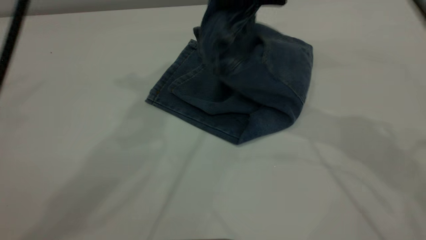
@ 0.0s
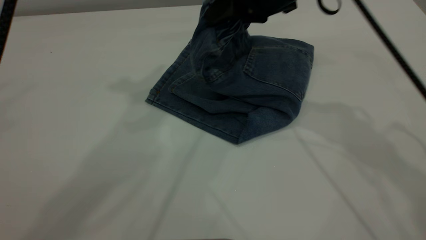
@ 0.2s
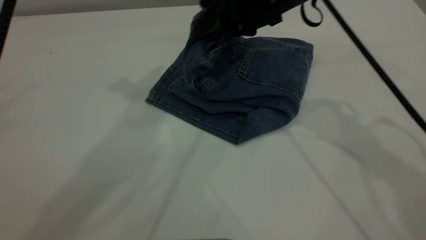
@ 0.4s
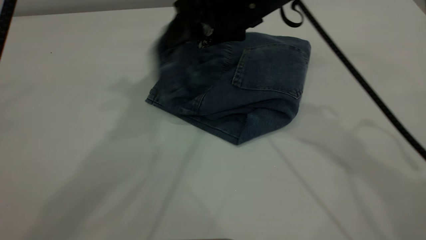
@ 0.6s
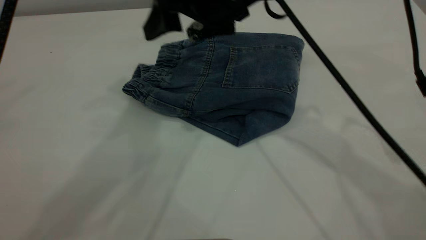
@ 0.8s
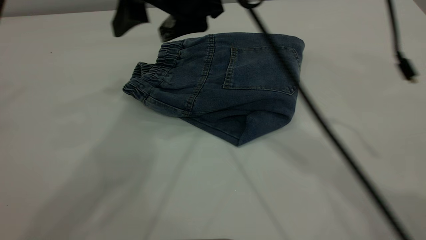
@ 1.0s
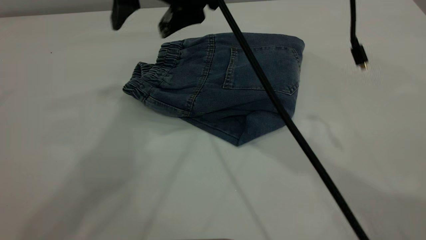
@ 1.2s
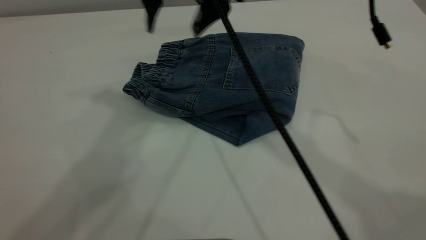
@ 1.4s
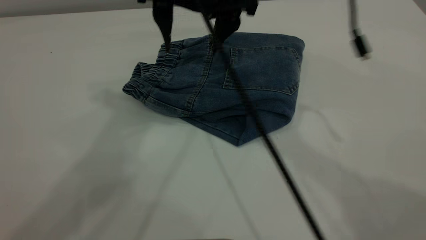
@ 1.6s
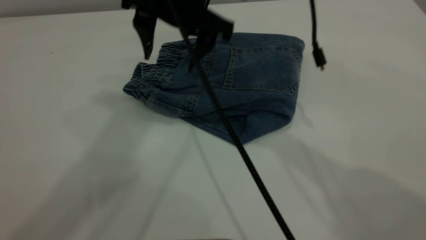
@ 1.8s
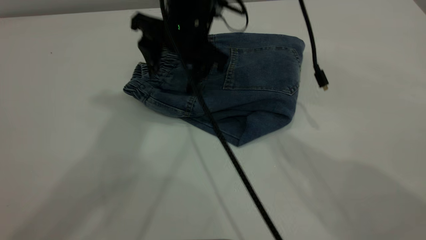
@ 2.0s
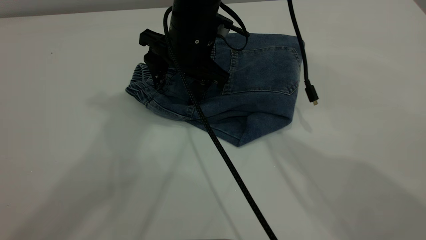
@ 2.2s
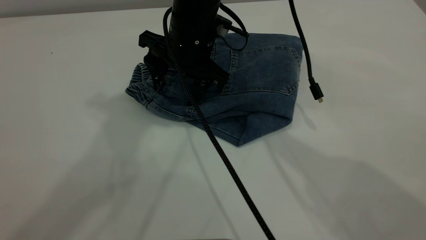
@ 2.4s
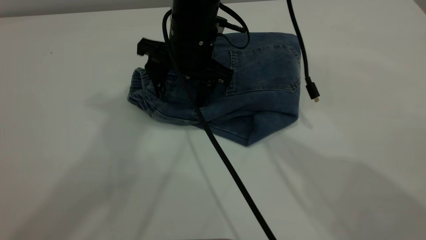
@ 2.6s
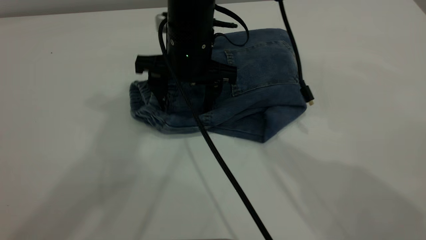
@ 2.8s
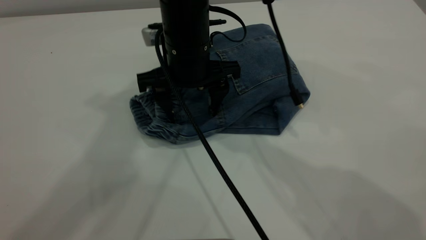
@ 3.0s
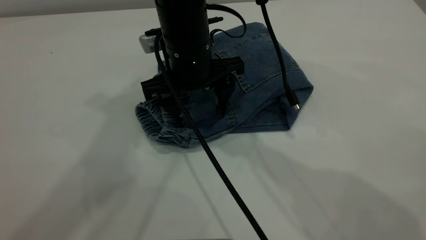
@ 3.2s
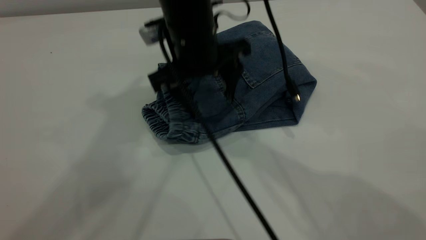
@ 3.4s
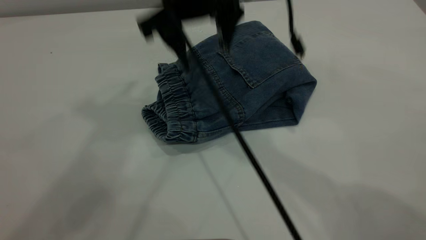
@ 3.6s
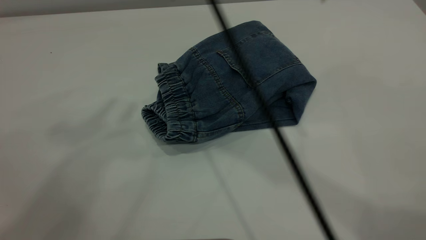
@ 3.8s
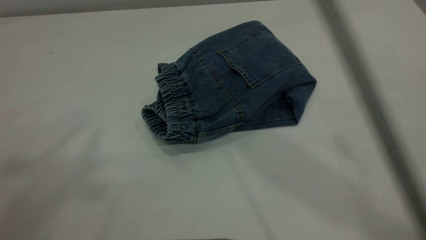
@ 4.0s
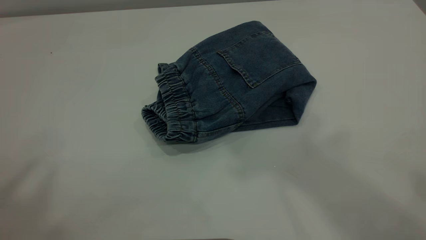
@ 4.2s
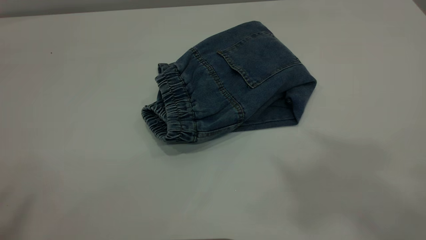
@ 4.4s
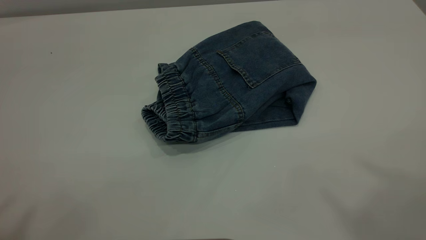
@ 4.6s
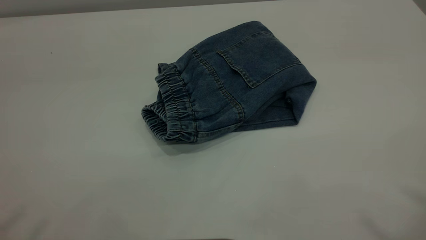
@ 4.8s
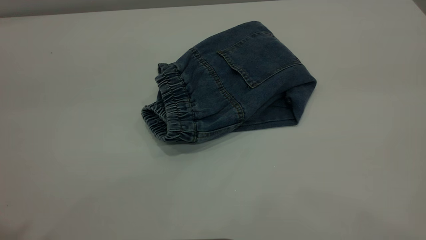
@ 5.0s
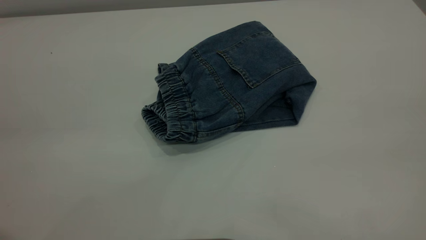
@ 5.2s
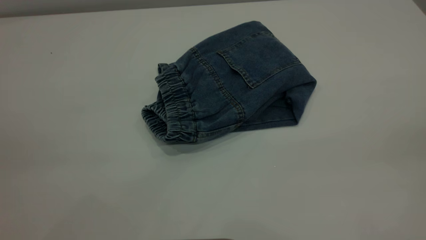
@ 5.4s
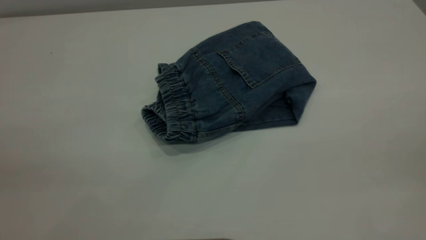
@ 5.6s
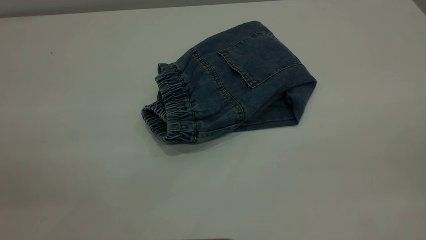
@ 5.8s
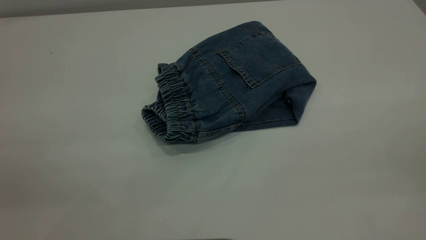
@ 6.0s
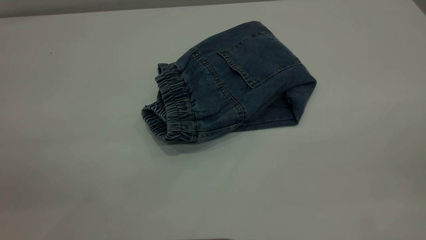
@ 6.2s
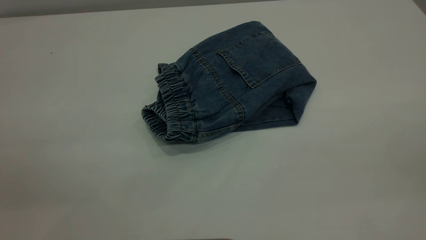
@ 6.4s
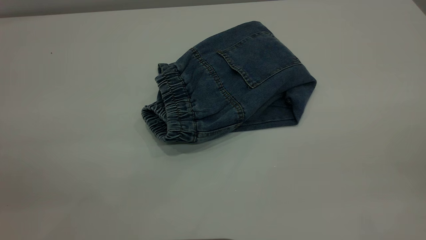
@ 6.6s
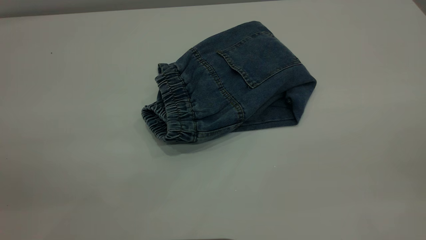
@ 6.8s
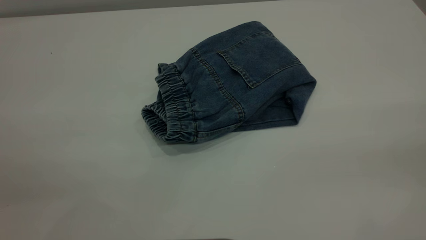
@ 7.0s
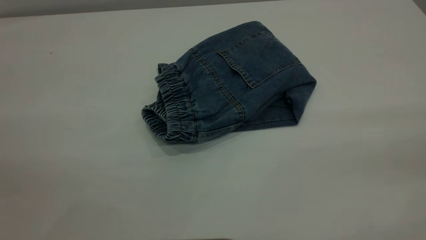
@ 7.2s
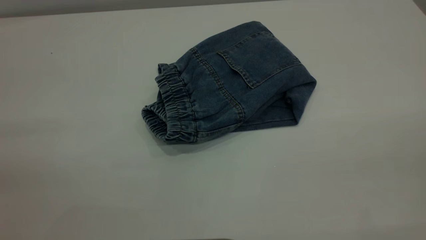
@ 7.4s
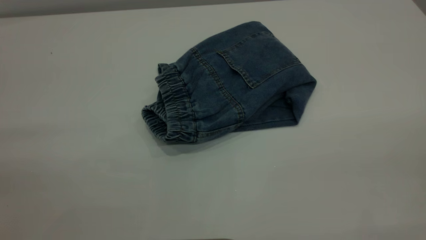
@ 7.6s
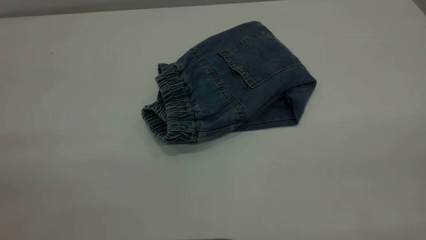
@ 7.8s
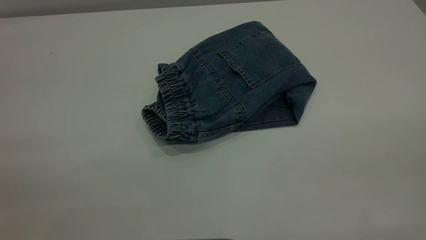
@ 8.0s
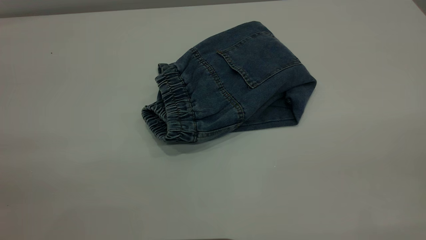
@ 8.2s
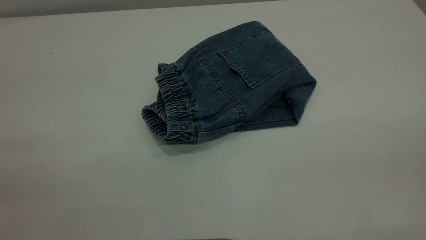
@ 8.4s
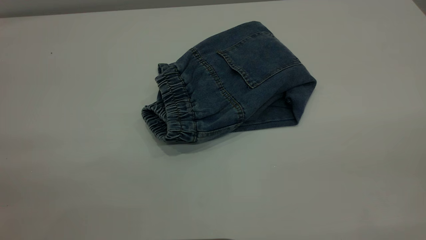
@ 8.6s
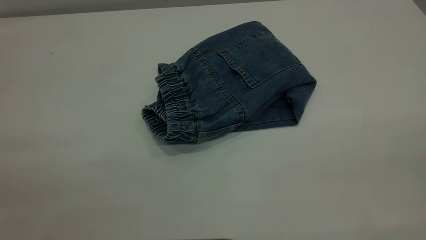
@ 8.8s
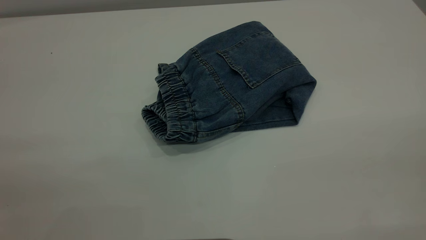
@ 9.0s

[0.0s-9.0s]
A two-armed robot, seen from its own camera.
0.0s to 1.6s: The left gripper ends up some 5 cm from where it was. Meanwhile the right gripper heads to the left, covering about 10 cm, and opens up.
1.6s to 3.0s: The right gripper shifts about 10 cm downward.
3.0s to 4.4s: The right gripper shifts roughly 50 cm upward, to the right and backward; the left gripper goes approximately 25 cm backward, to the left and upward.

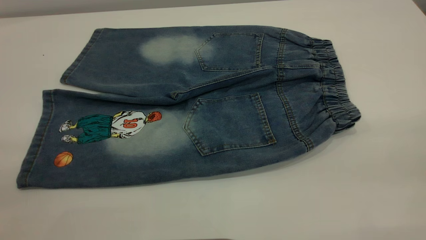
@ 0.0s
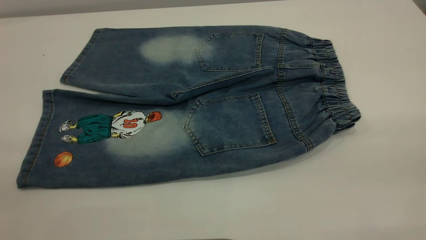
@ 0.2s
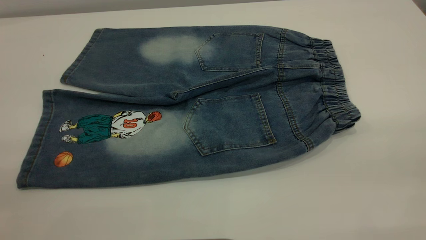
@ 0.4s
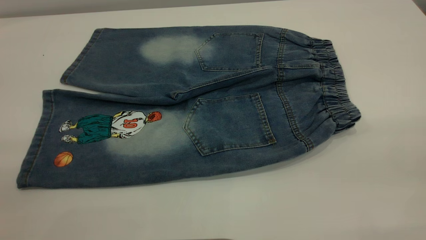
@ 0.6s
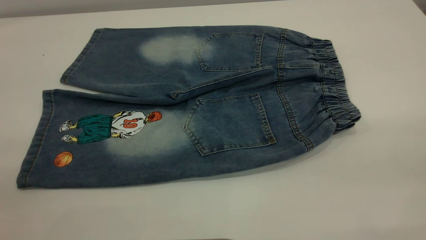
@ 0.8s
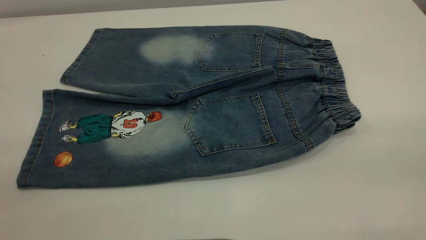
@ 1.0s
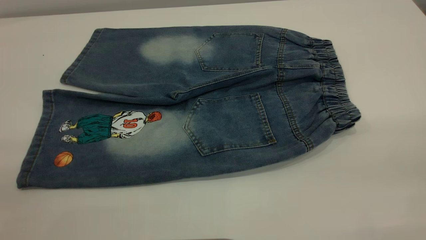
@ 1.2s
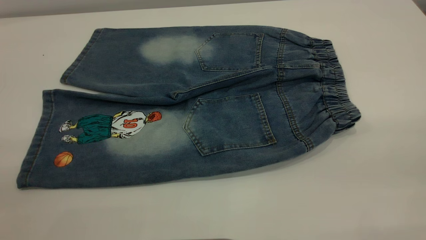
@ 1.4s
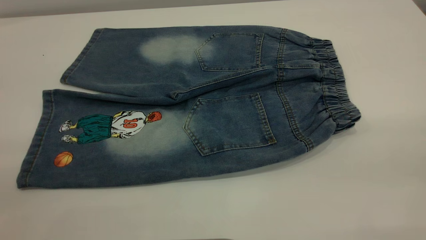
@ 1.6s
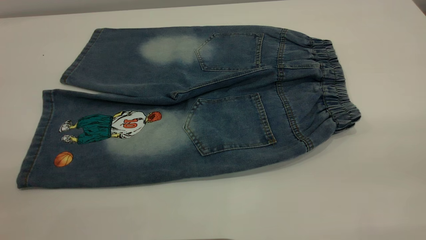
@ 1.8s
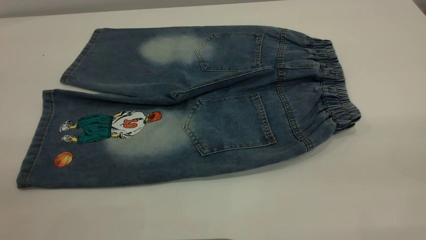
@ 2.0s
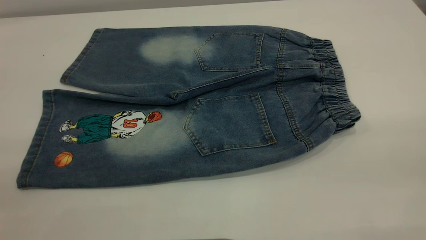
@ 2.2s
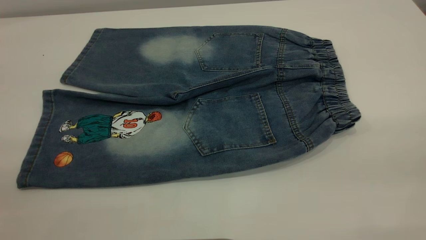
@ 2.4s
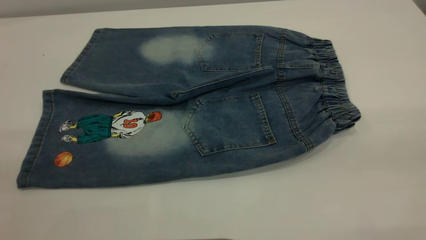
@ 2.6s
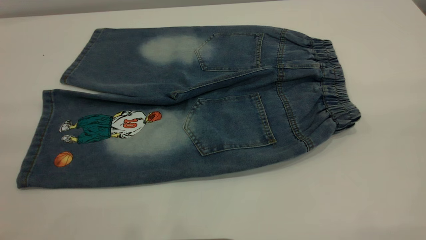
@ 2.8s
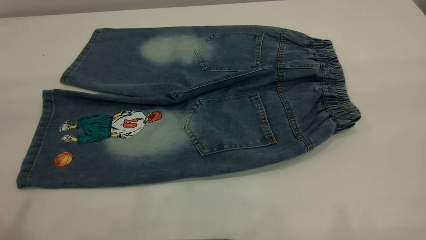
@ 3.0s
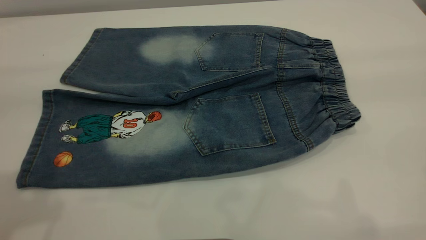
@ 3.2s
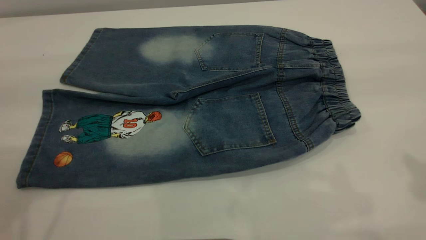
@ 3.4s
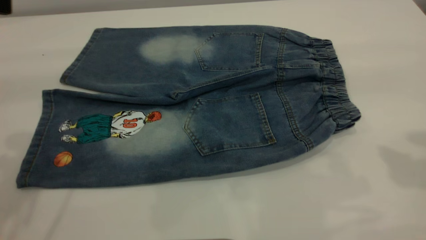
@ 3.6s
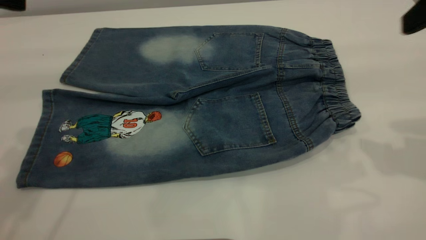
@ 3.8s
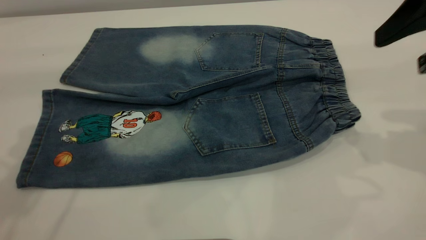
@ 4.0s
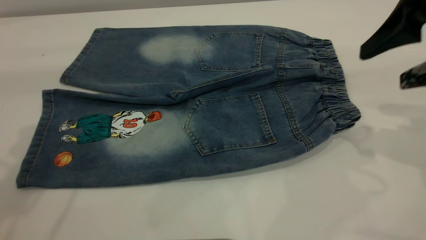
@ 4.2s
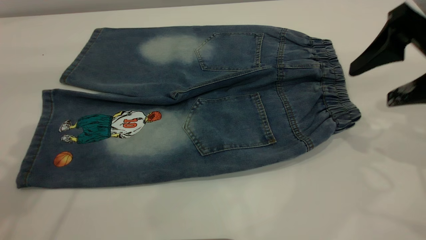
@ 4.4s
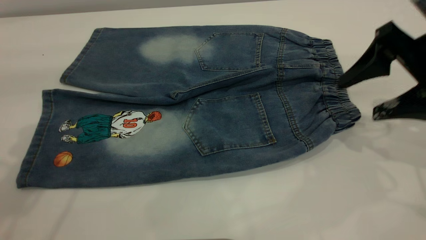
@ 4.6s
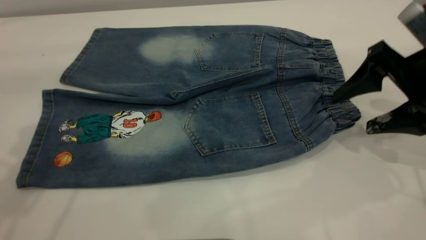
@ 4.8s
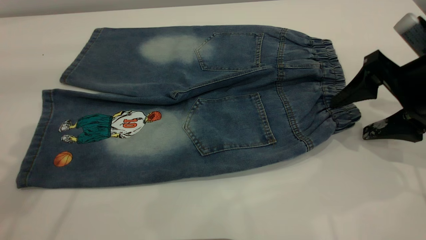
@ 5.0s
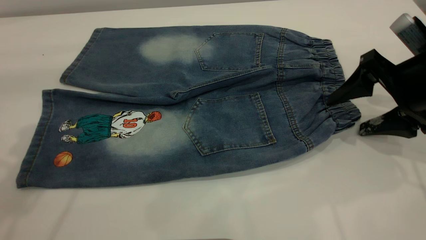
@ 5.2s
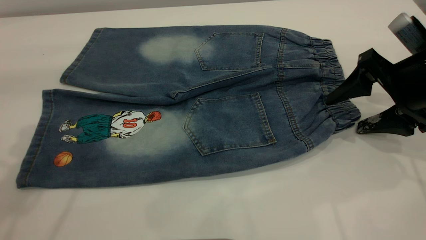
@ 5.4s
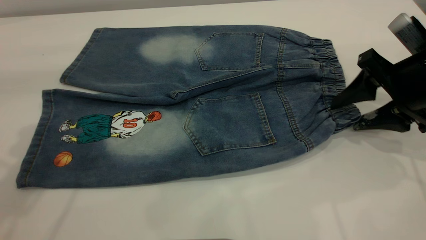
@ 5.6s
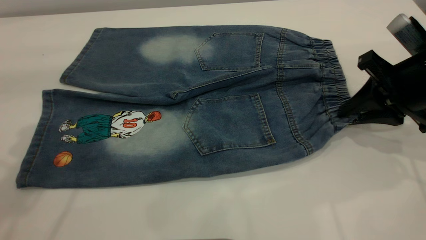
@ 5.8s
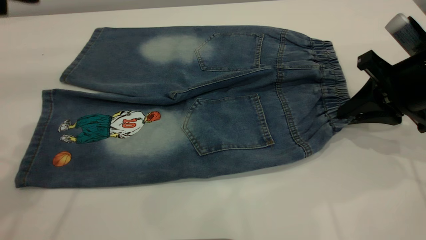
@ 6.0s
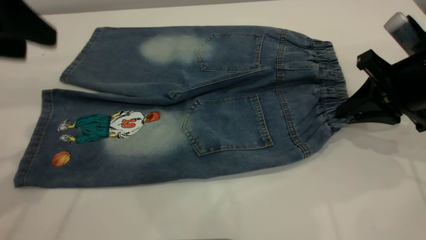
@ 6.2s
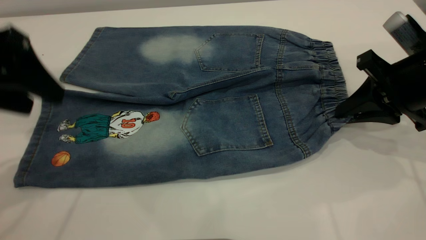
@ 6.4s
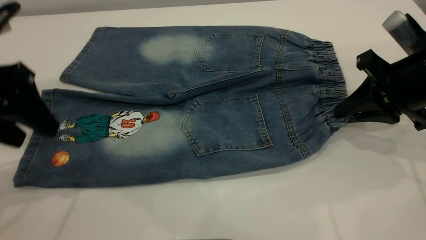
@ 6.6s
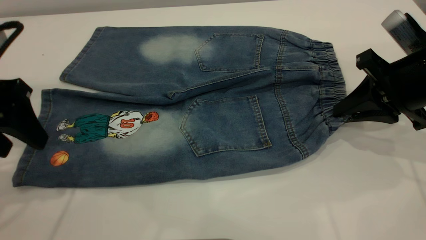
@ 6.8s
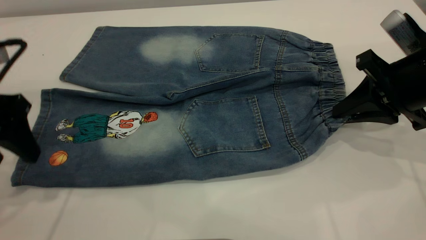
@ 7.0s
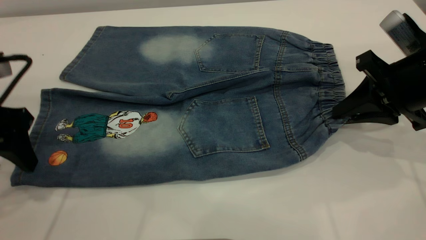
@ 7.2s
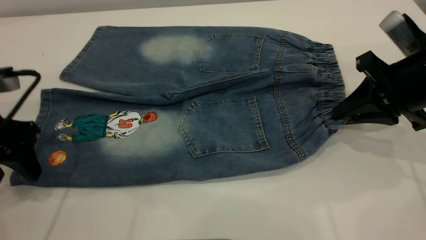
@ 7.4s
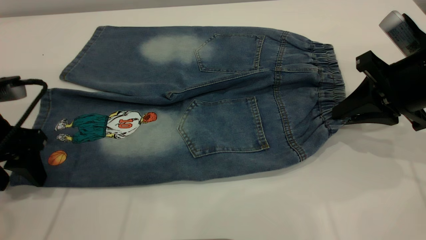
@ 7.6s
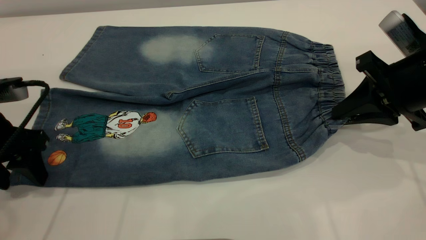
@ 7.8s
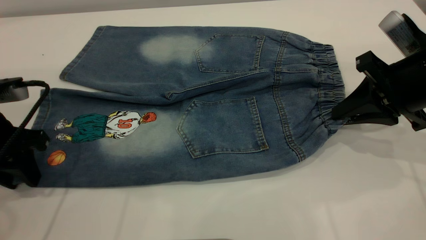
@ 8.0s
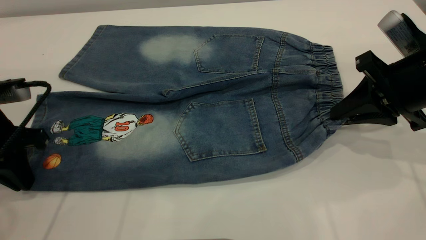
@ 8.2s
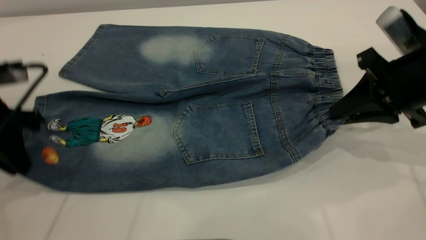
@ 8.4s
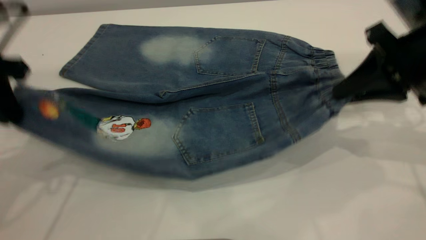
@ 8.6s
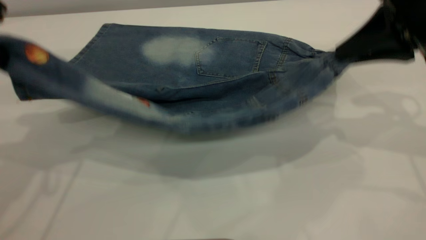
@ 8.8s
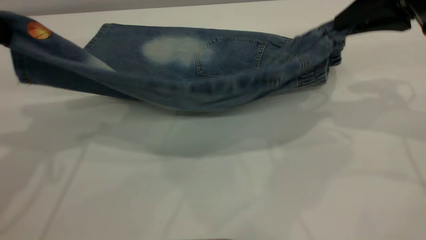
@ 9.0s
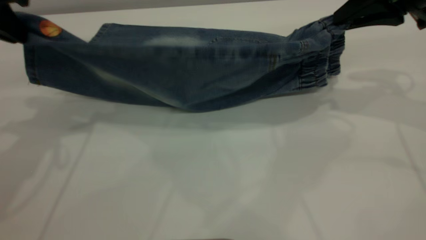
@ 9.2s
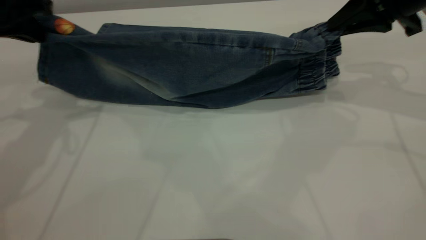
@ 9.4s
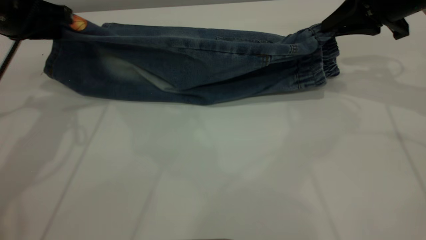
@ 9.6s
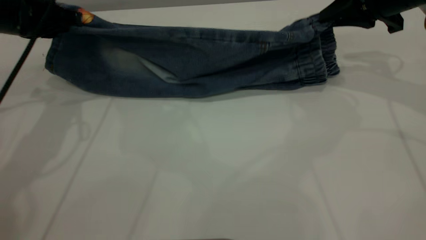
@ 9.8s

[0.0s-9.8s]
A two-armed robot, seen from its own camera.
0.0s to 1.4s: Both grippers stay about where they are.
2.8s to 4.2s: The right gripper travels forward and downward by about 25 cm.
4.2s to 5.6s: The right gripper goes roughly 10 cm downward, and closes.
5.6s to 7.0s: The right gripper closes up; the left gripper moves downward, about 15 cm.
7.0s to 8.4s: The left gripper closes.
8.4s to 9.8s: Both grippers move forward, about 10 cm. The left gripper moves some 10 cm upward and comes back.
